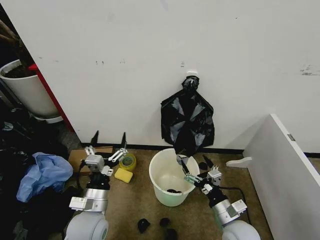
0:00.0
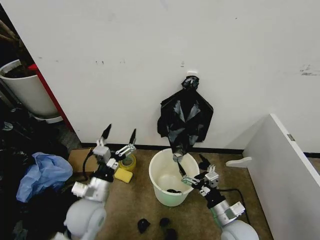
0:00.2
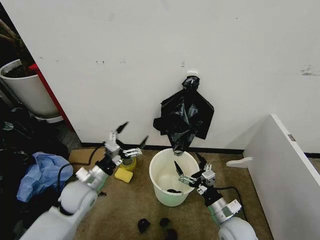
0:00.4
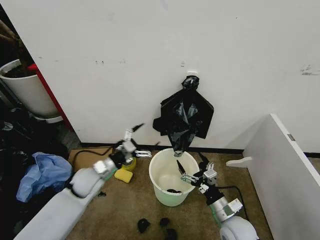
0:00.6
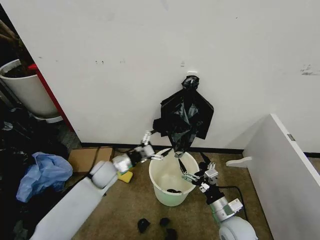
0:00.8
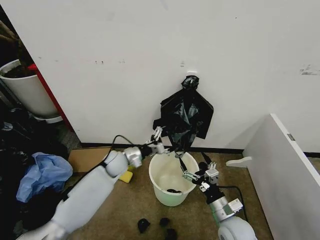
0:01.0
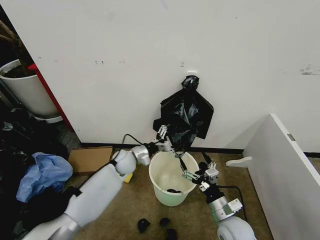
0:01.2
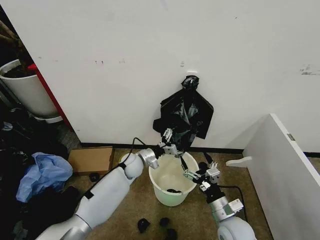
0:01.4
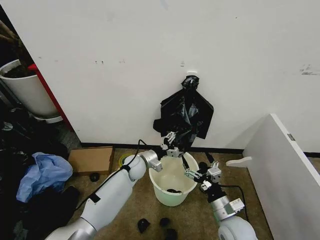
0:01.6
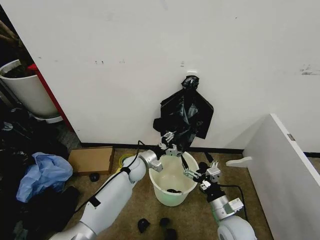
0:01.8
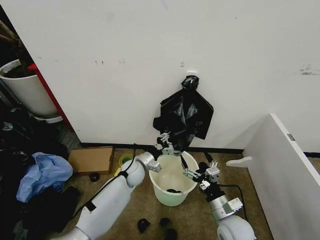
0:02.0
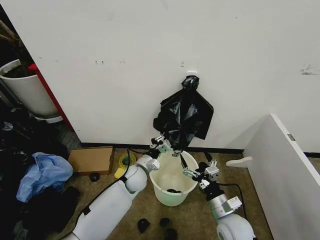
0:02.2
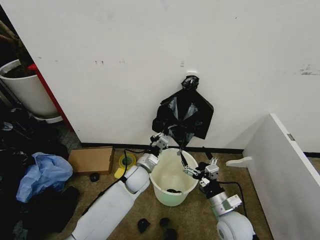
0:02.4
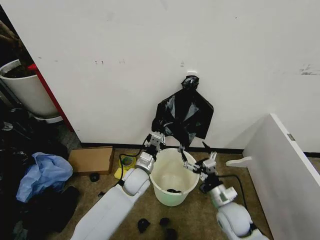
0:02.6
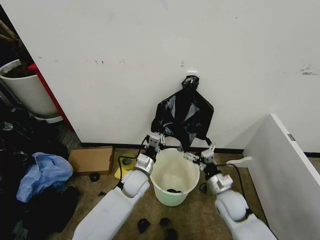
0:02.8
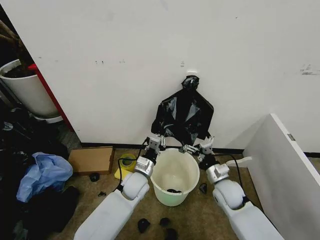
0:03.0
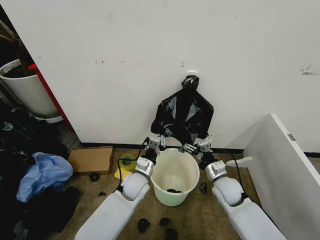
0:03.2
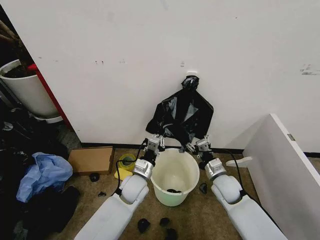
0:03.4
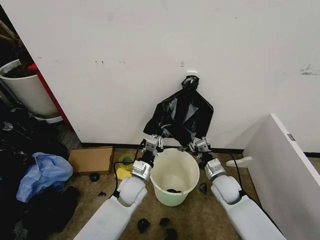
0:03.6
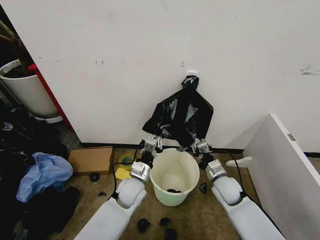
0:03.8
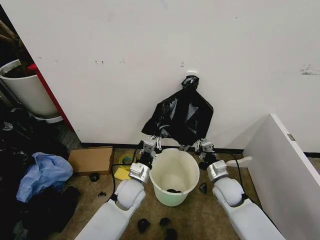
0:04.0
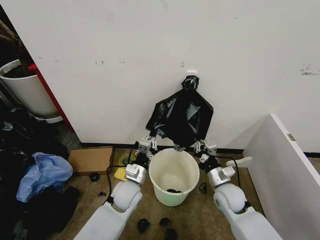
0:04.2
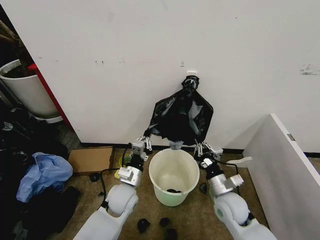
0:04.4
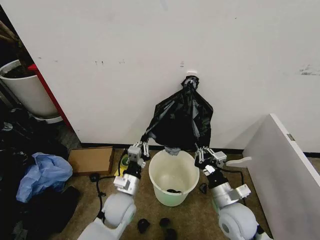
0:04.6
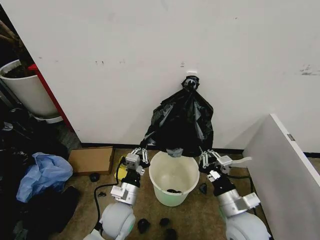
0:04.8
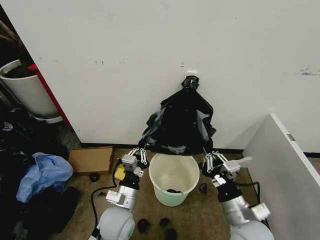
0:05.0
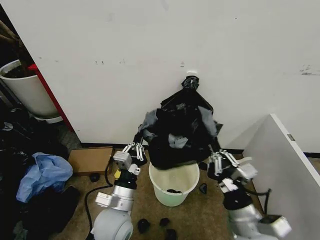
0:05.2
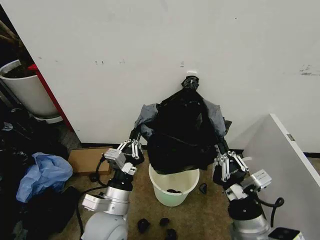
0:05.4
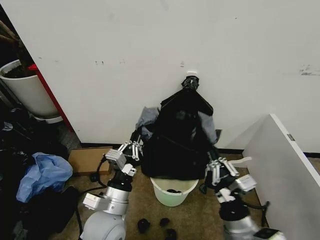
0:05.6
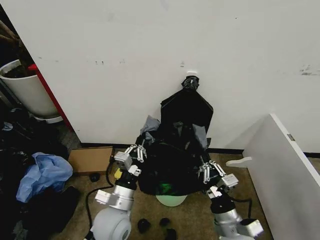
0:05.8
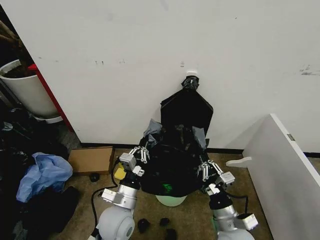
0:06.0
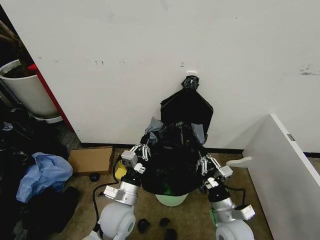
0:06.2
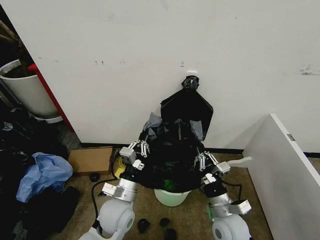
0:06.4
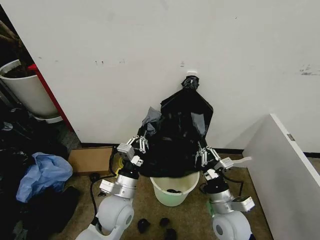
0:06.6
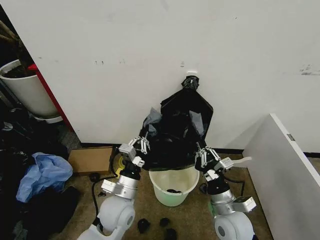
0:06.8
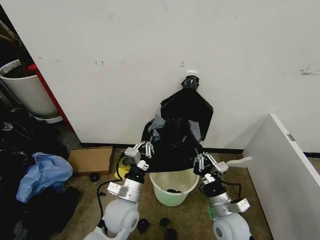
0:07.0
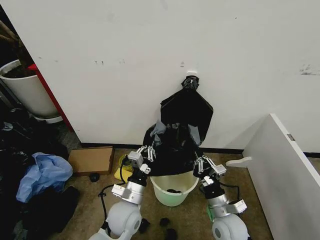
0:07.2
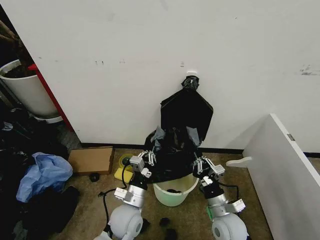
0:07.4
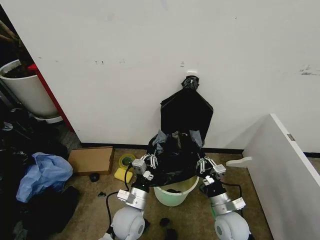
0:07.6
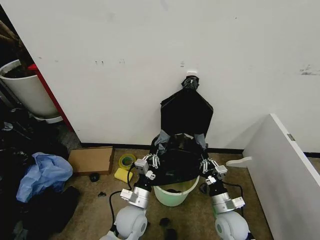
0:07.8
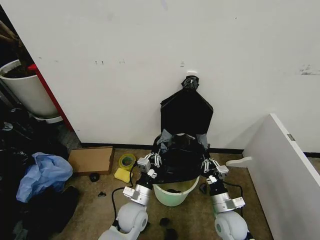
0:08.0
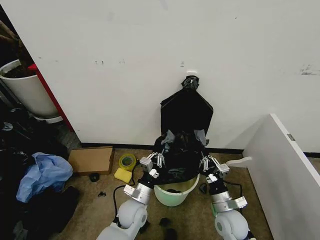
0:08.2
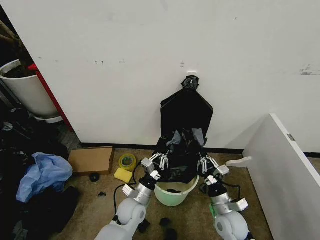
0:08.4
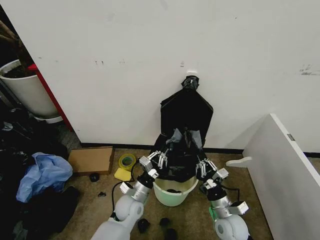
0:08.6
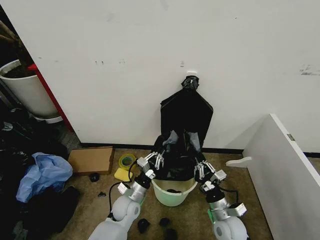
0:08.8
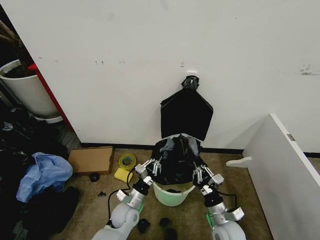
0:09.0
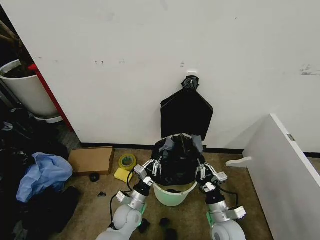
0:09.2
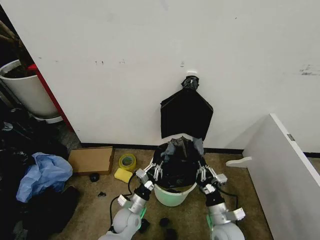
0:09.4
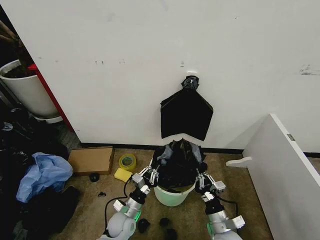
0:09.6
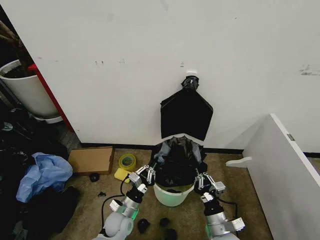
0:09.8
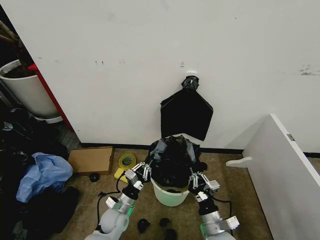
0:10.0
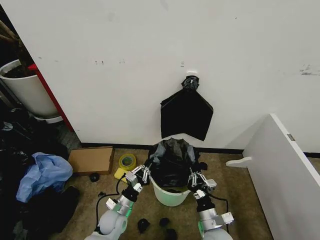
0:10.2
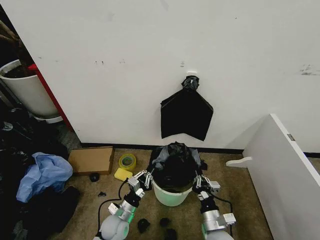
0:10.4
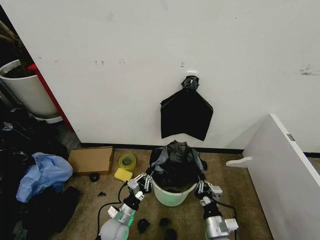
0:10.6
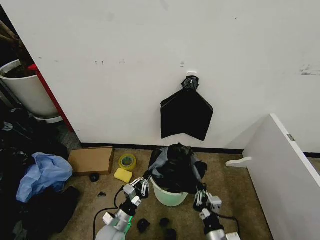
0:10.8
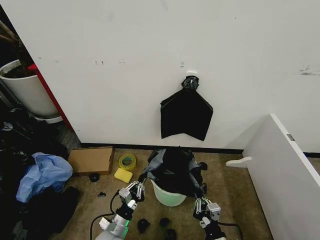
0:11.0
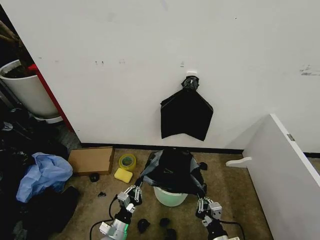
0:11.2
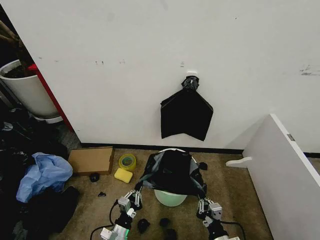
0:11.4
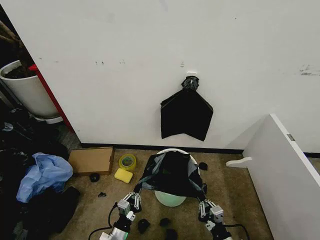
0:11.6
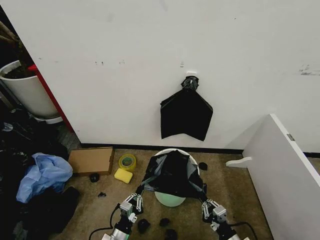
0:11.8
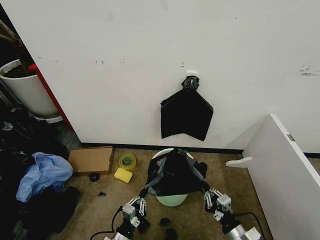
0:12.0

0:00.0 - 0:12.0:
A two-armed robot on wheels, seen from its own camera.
Task of the whole recording: Place the garbage bag over the trash bin.
0:00.0 - 0:01.6: The left gripper is displaced forward by about 25 cm.
0:01.6 - 0:03.0: The right gripper shifts roughly 10 cm forward. Meanwhile the left gripper goes some 10 cm backward, and closes up.
0:03.0 - 0:04.4: Both grippers travel together backward, roughly 5 cm. The right gripper closes its fingers.
0:04.4 - 0:06.0: The two grippers go roughly 10 cm backward.
0:06.0 - 0:07.6: The right gripper changes place by about 5 cm; the left gripper moves downward, about 5 cm.
0:07.6 - 0:09.0: The left gripper travels downward by some 5 cm.
0:09.0 - 0:10.4: The left gripper ends up some 5 cm from where it was.
0:10.4 - 0:12.0: The right gripper is displaced to the right by approximately 10 cm. Meanwhile the left gripper shifts some 10 cm backward.

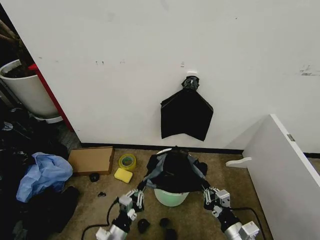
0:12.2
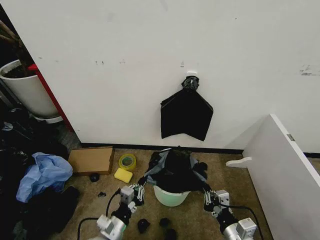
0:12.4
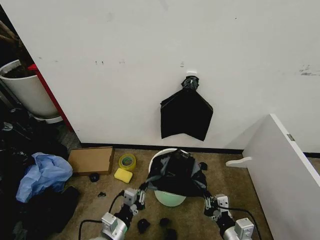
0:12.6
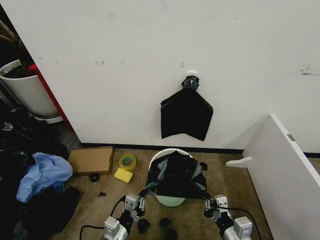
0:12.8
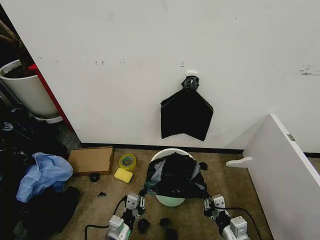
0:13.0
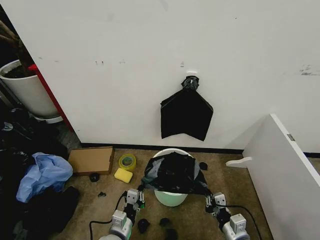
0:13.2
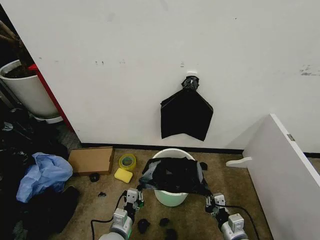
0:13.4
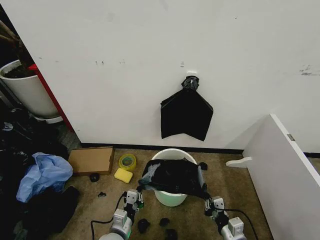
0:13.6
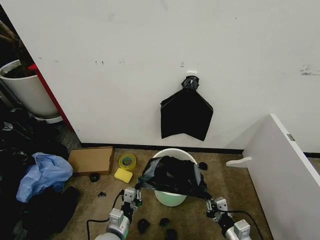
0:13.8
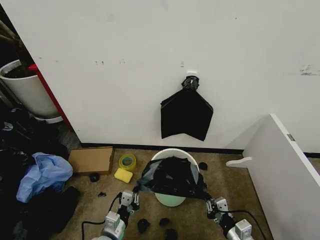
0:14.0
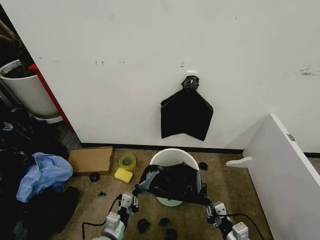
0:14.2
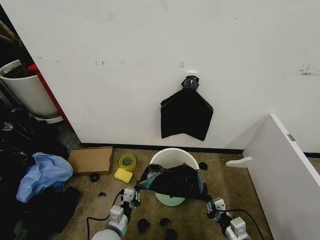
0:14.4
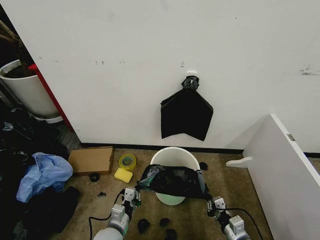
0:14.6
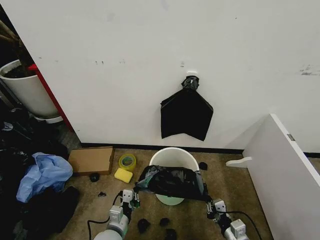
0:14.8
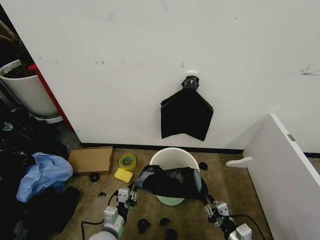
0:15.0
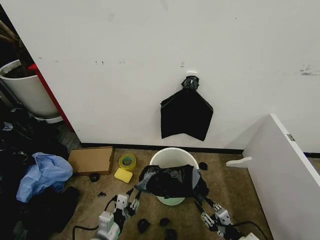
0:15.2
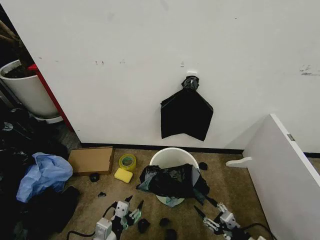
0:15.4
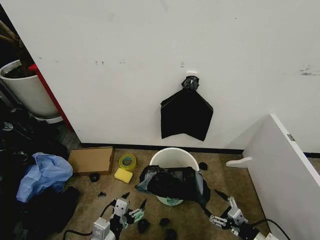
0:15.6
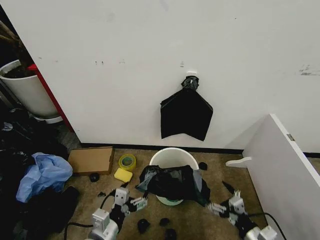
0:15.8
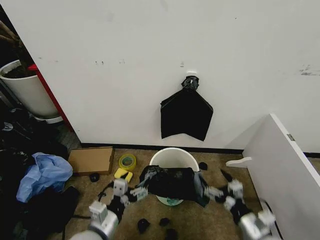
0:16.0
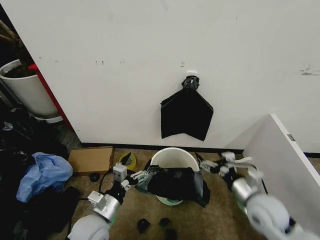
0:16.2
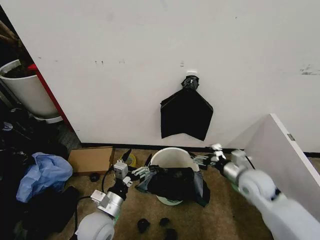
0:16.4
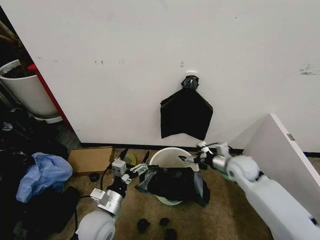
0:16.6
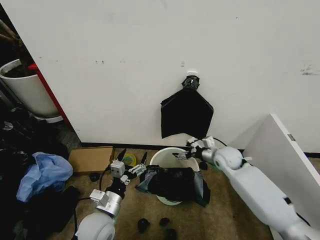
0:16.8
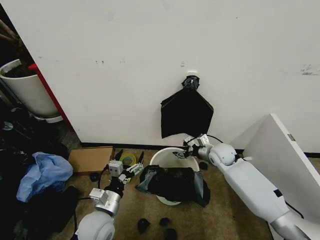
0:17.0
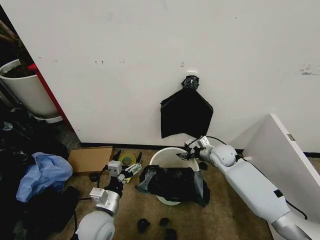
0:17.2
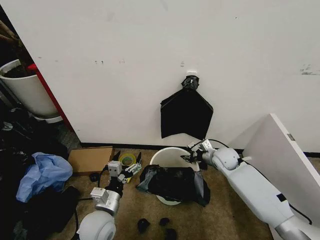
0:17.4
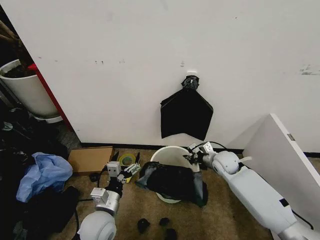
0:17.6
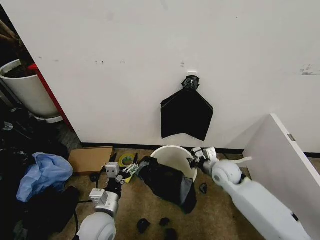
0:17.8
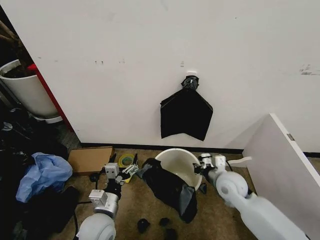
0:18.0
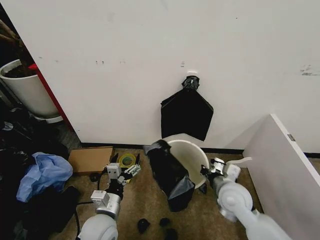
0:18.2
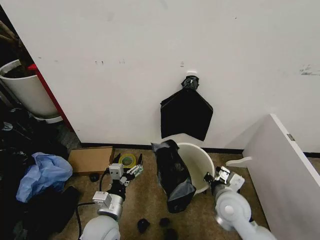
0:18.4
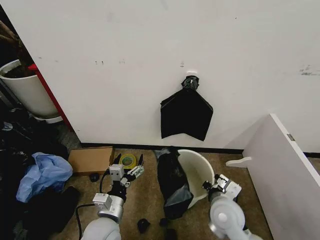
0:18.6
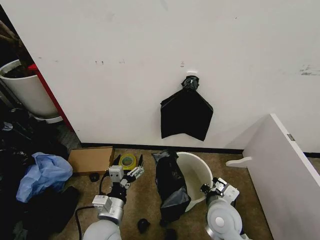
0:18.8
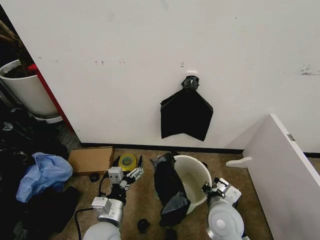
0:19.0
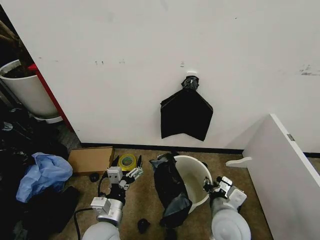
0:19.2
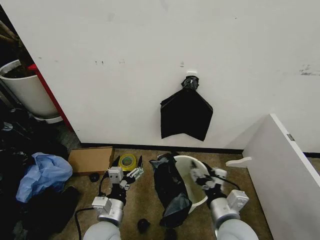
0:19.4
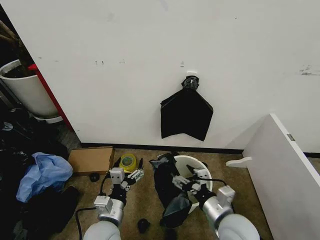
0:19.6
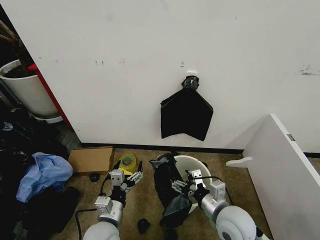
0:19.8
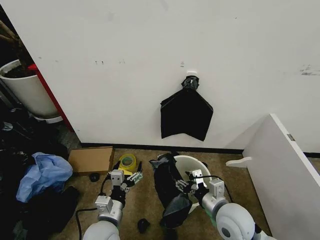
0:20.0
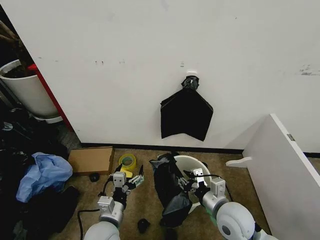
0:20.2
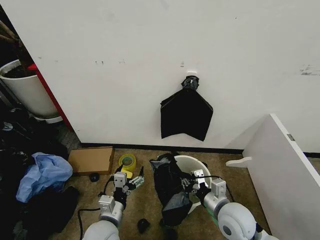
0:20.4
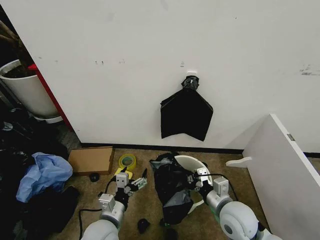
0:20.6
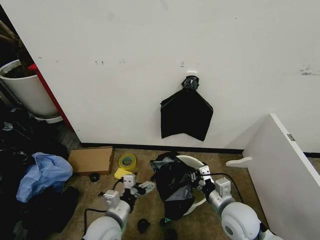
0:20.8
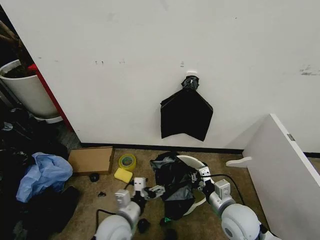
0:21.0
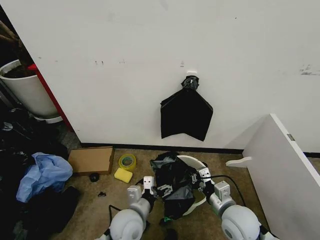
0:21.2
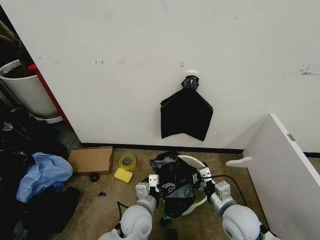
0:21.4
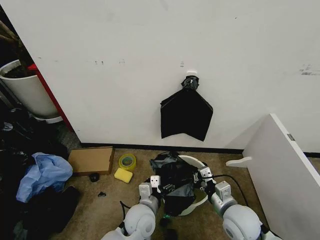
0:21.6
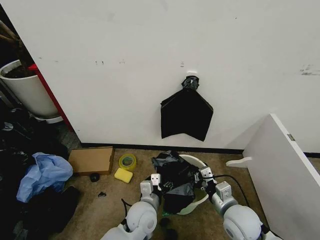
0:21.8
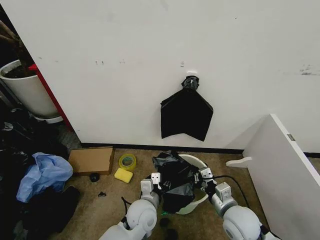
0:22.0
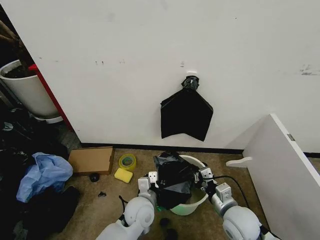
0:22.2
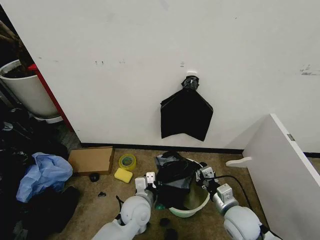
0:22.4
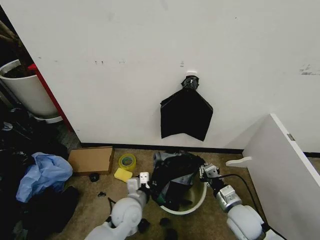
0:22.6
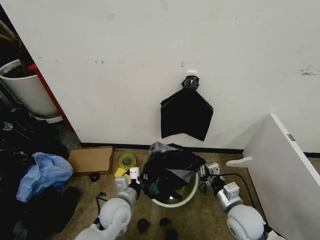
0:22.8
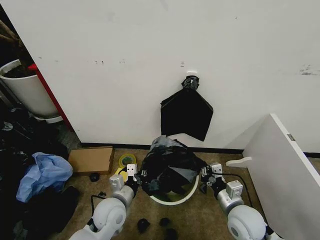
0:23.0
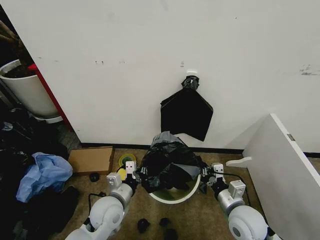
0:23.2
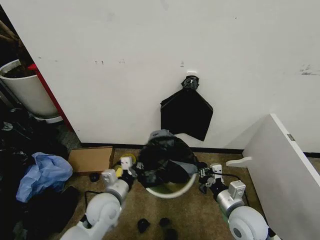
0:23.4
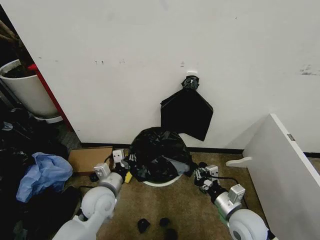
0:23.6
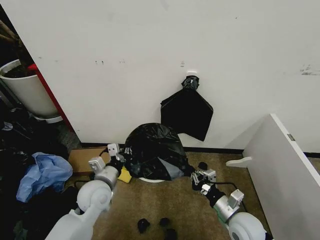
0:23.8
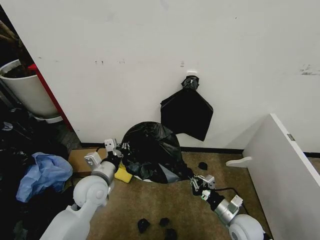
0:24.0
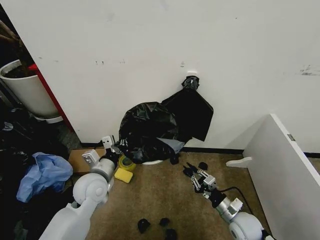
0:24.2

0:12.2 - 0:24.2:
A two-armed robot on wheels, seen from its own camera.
Task of the whole recording: Place the garbage bag over the trash bin.
0:12.2 - 0:13.8: The right gripper shifts some 5 cm downward.
0:13.8 - 0:15.2: The right gripper opens its fingers, while the left gripper changes place by about 5 cm, and opens.
0:15.2 - 0:16.6: The left gripper goes roughly 10 cm forward and upward, and opens up; the right gripper travels forward and upward by some 30 cm, and opens its fingers.
0:16.6 - 0:18.2: The right gripper shifts about 10 cm backward and to the left, and closes up.
0:18.2 - 0:19.8: The right gripper goes roughly 10 cm backward, and opens its fingers.
0:19.8 - 0:21.2: The left gripper is displaced to the right by about 5 cm, while the right gripper closes.
0:21.2 - 0:22.6: The left gripper closes. Meanwhile the right gripper shifts by roughly 5 cm.
0:22.6 - 0:24.2: The left gripper goes about 15 cm to the left and upward. Meanwhile the right gripper shifts about 5 cm downward.
